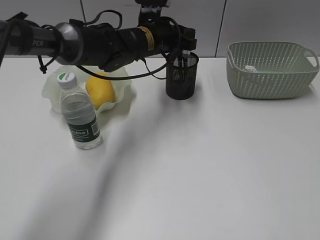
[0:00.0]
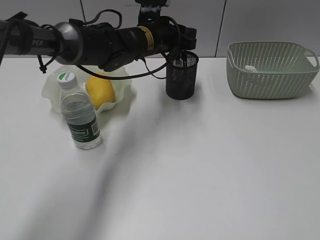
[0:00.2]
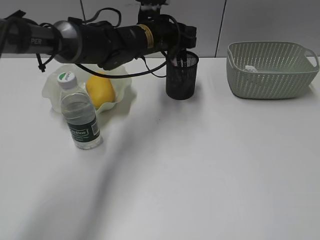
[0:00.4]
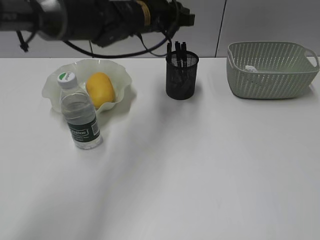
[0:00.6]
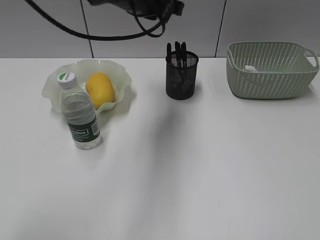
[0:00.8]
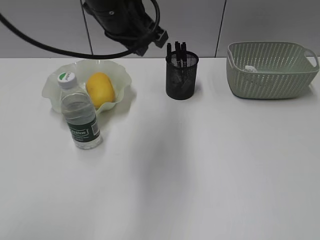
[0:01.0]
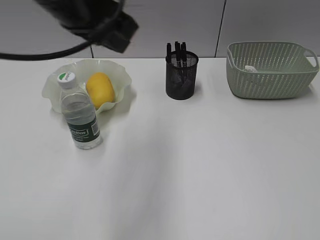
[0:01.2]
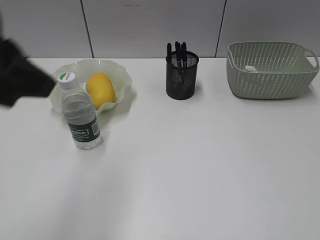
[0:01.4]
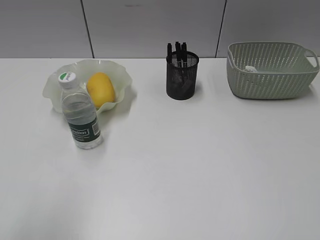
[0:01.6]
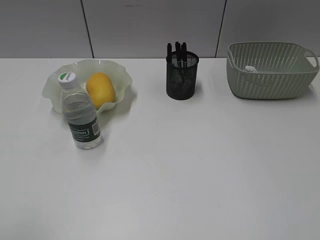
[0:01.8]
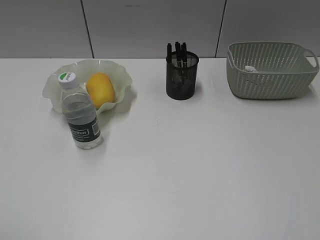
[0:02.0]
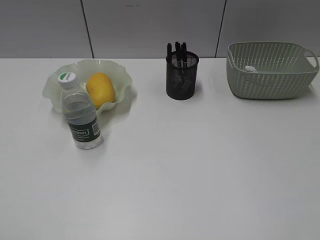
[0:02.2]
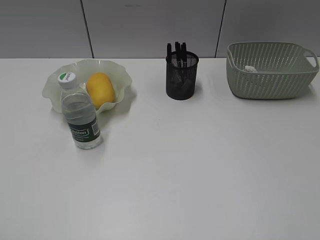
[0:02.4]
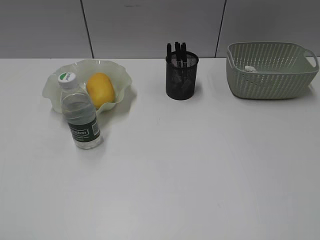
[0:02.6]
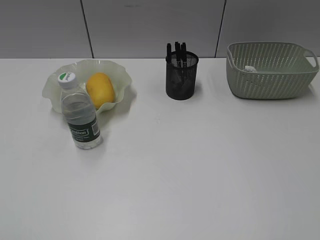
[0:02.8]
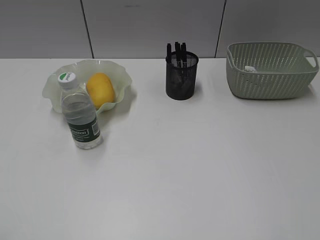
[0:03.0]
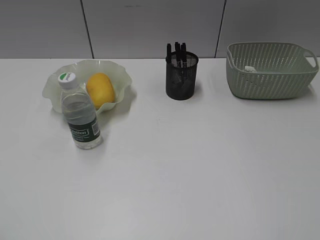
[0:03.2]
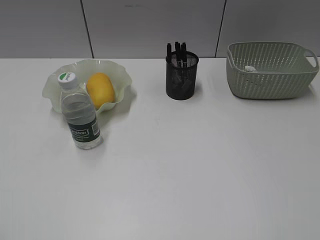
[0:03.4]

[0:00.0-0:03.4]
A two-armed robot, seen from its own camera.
0:00.0 to 0:01.6: The left gripper is displaced backward and to the left by about 40 cm.

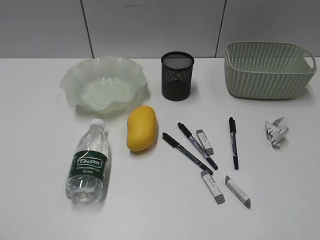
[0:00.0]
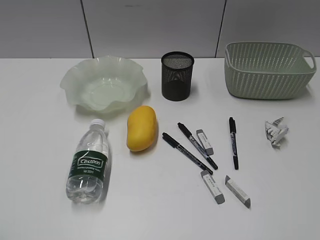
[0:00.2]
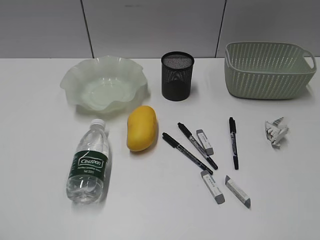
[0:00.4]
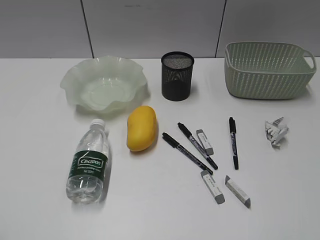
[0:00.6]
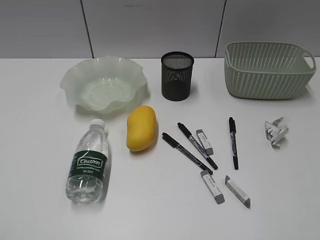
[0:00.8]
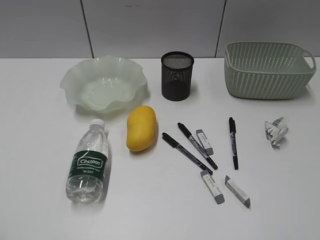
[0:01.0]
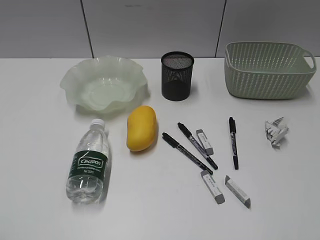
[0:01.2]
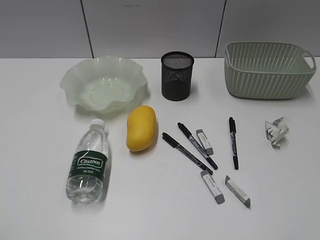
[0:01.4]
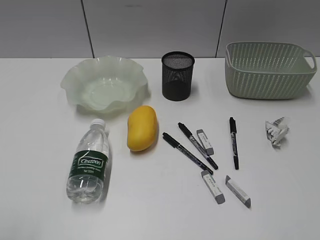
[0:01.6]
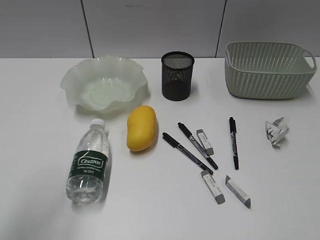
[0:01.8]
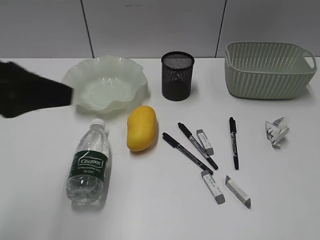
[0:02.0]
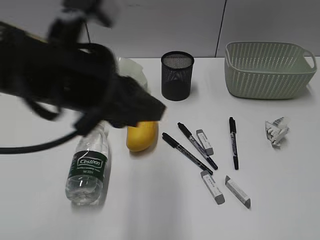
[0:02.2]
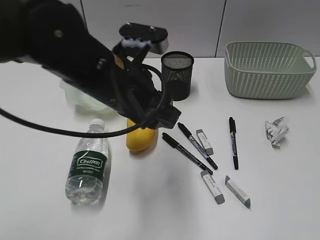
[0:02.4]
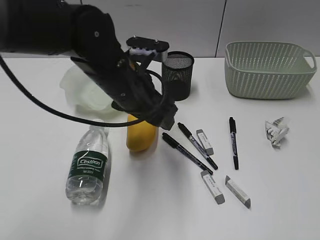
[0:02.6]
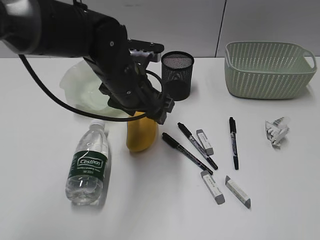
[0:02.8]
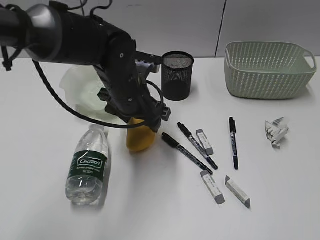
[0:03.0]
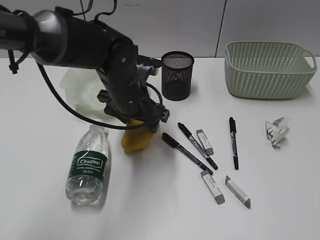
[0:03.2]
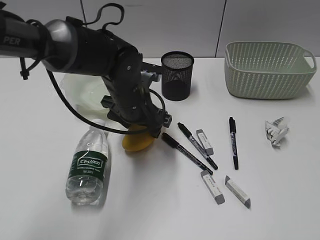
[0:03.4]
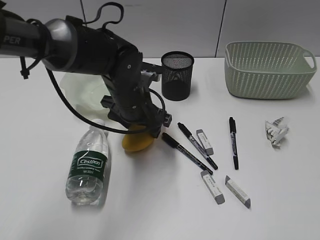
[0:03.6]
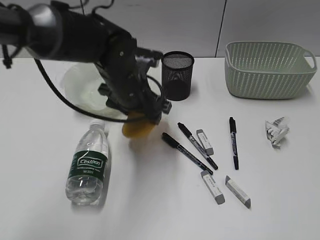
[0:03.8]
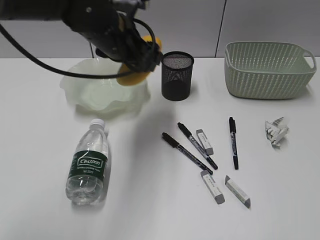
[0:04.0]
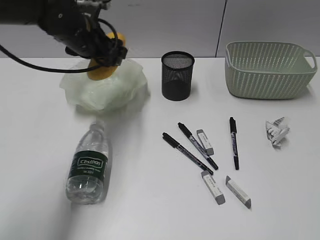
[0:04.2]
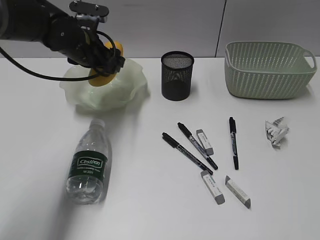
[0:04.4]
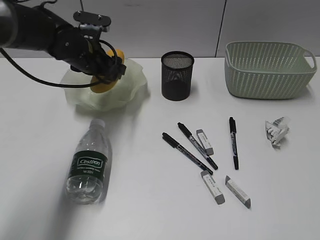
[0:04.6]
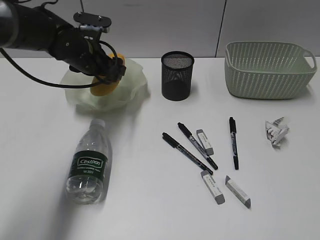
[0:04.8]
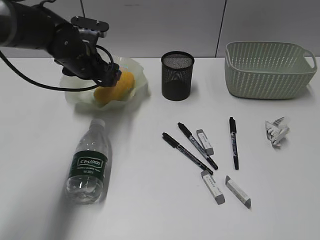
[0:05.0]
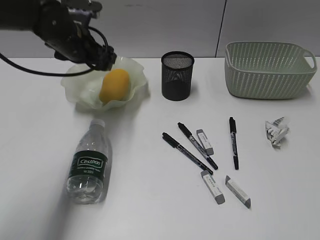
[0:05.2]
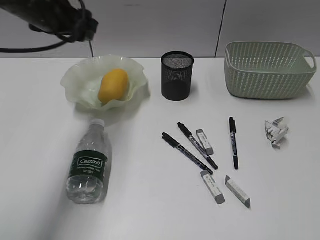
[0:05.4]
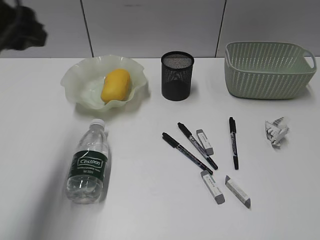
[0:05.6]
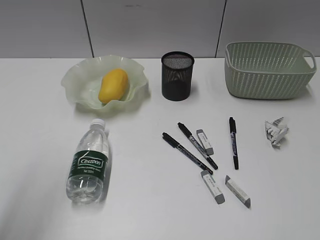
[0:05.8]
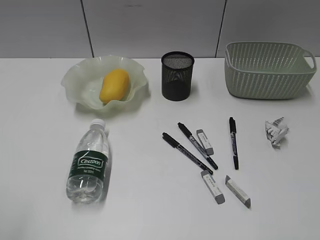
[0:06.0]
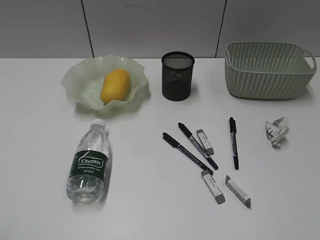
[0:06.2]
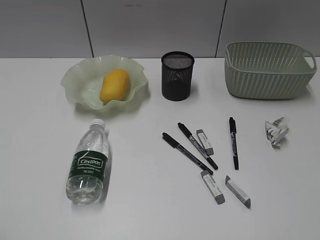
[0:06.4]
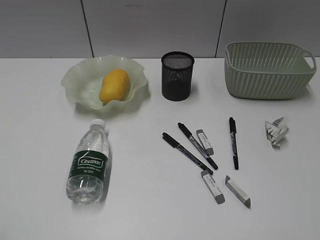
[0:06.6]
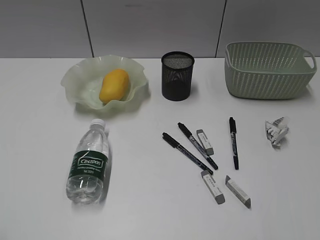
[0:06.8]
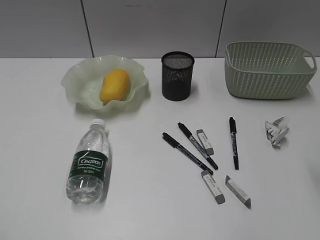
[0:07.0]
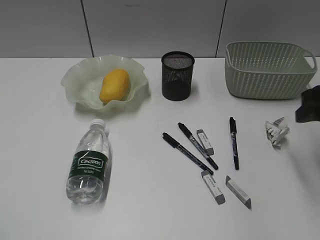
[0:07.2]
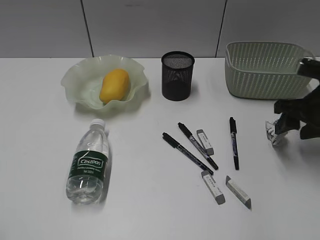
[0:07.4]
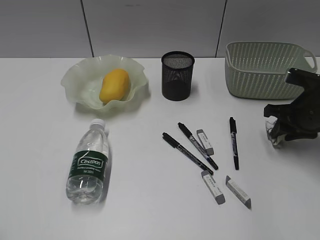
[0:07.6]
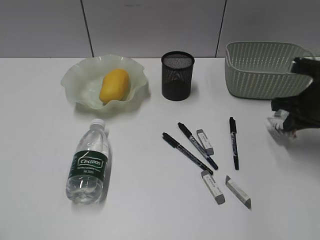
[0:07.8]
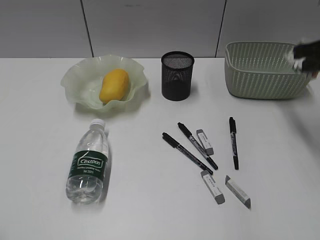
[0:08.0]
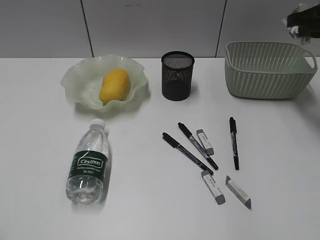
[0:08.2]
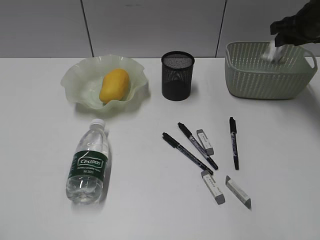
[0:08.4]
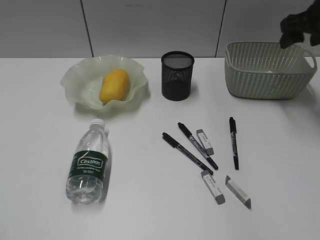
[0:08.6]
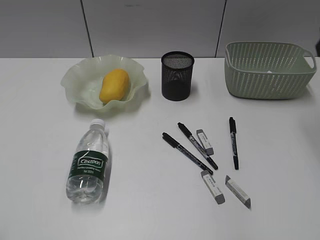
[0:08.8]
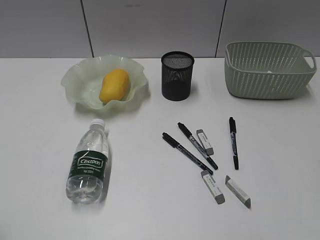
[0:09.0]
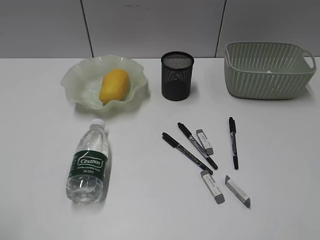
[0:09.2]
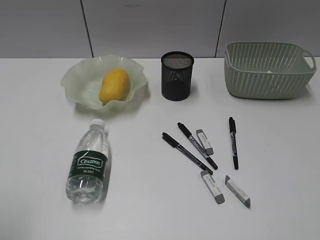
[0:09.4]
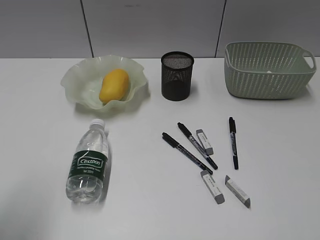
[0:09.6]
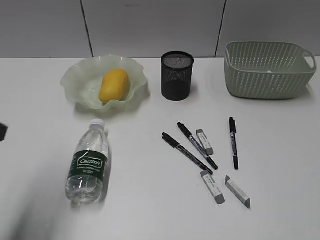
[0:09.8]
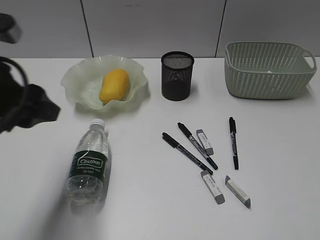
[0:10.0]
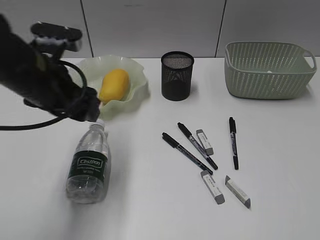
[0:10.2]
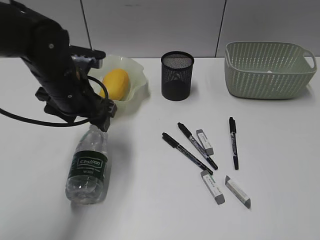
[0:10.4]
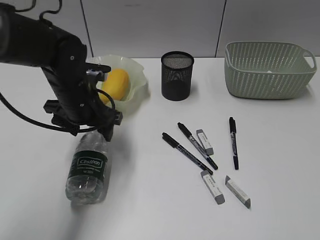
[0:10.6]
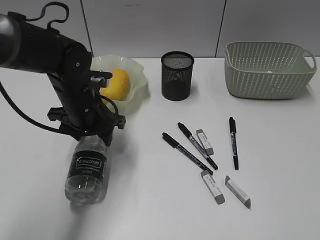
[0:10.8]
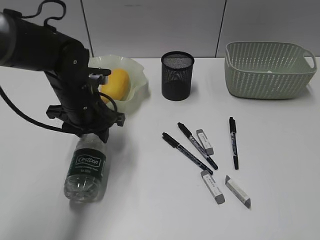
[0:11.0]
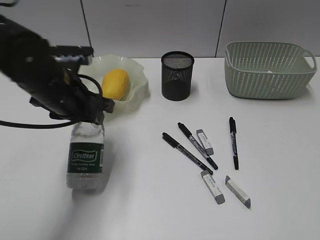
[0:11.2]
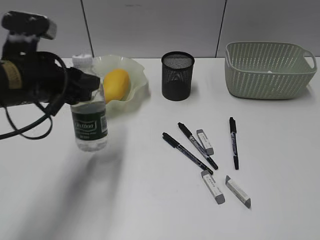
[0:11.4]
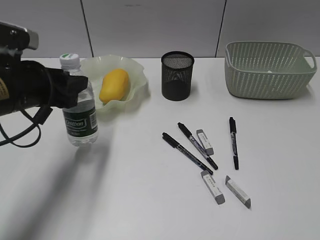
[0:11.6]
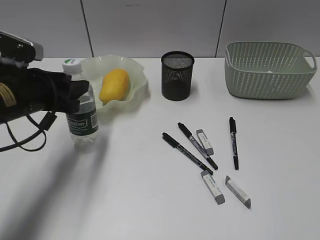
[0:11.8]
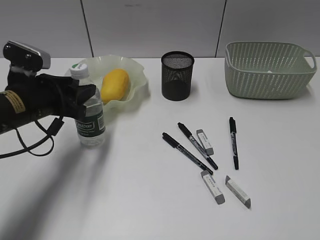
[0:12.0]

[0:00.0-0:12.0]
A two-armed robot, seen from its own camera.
Step, 0:01.4 to 0:03.4: Grasp the mango with left gripper.
Step, 0:03.6 to 0:05.2: Place the mango in the plate with left gripper.
Step, 0:05.4 to 0:07.6: Grasp the waste paper with right gripper.
Step, 0:07.8 to 0:08.4: Place the waste paper in the basket with right gripper.
Step, 0:08.6 to 0:10.8: Grasp the bottle with left gripper.
0:01.6 to 0:03.0: The left gripper heads forward, to the right and downward, covering some 40 cm, and opens.
0:03.0 to 0:04.4: The left gripper is displaced forward and to the left by approximately 15 cm, and goes upward and returns, approximately 10 cm each way.
0:04.4 to 0:06.0: The left gripper travels backward and to the left by some 40 cm.
0:06.0 to 0:07.6: The right gripper moves forward and downward, approximately 40 cm, and opens and closes again.
0:07.6 to 0:09.0: The right gripper shifts roughly 25 cm upward and backward, and opens up.
0:09.0 to 0:10.4: The right gripper is displaced backward by roughly 15 cm. The left gripper shifts roughly 35 cm forward and to the right, and opens up.
0:10.4 to 0:12.0: The left gripper moves up and down over roughly 10 cm, changing direction 2 times, and closes up.

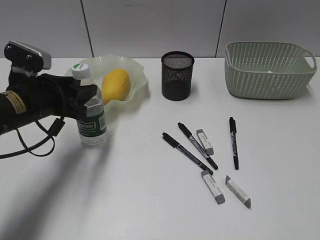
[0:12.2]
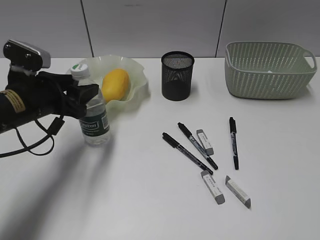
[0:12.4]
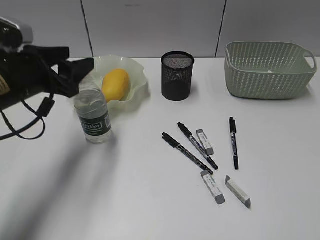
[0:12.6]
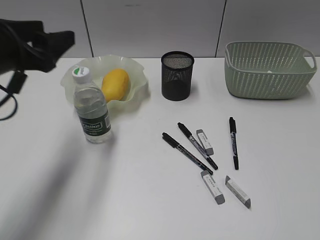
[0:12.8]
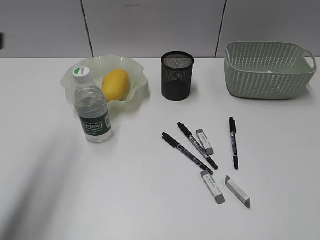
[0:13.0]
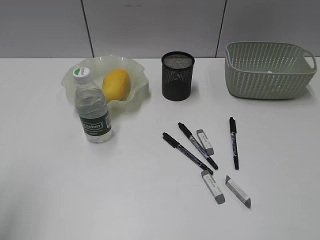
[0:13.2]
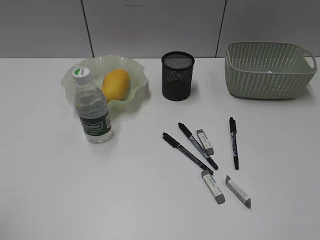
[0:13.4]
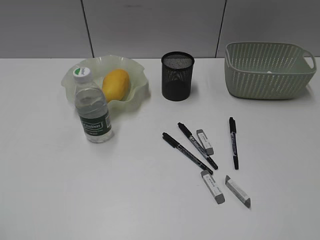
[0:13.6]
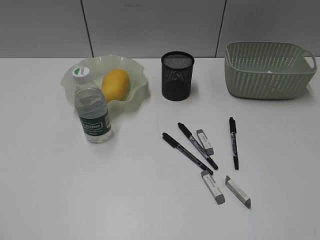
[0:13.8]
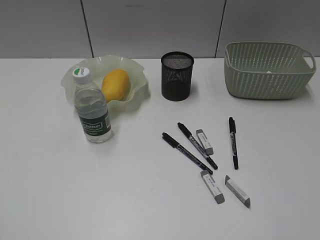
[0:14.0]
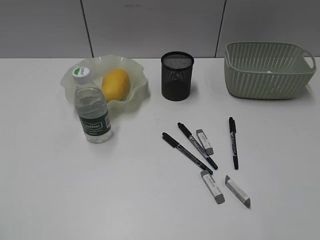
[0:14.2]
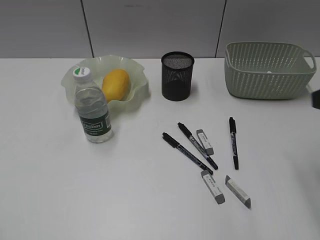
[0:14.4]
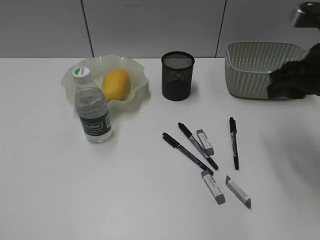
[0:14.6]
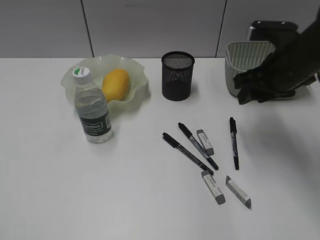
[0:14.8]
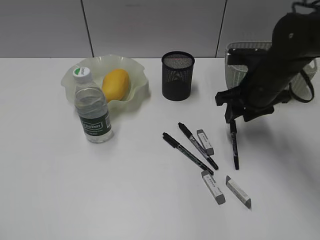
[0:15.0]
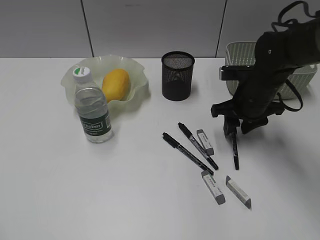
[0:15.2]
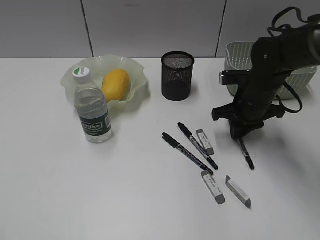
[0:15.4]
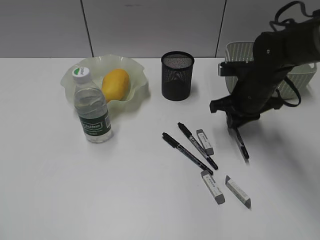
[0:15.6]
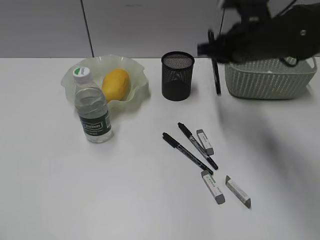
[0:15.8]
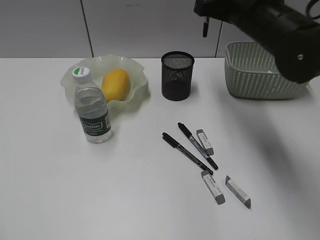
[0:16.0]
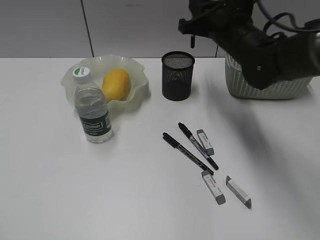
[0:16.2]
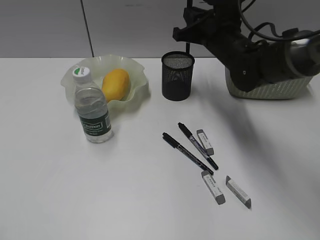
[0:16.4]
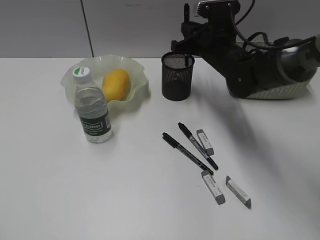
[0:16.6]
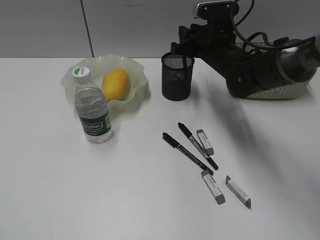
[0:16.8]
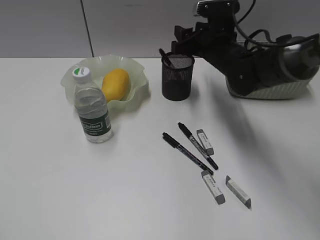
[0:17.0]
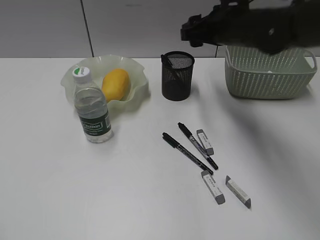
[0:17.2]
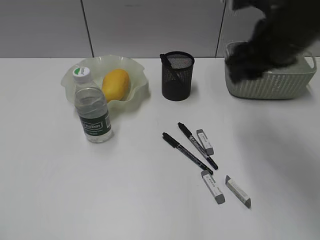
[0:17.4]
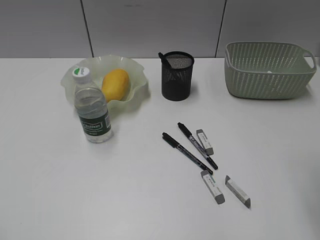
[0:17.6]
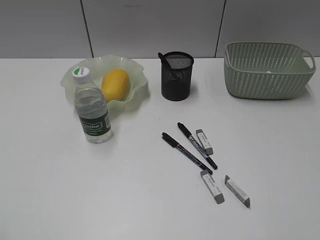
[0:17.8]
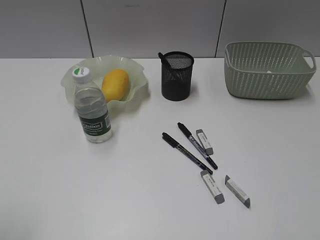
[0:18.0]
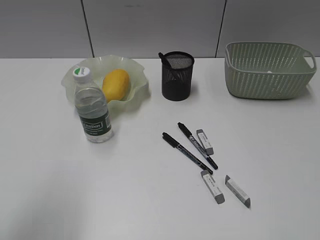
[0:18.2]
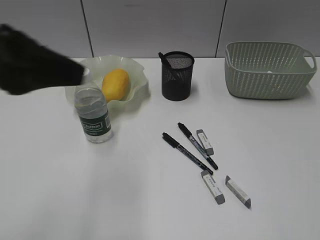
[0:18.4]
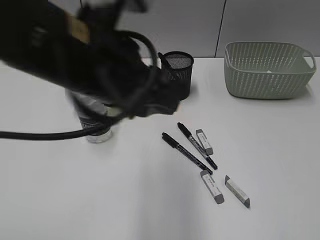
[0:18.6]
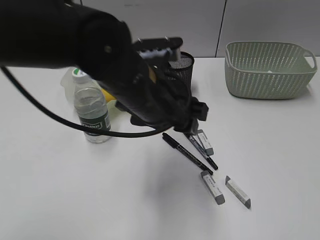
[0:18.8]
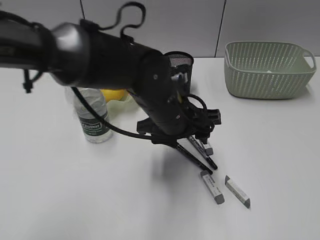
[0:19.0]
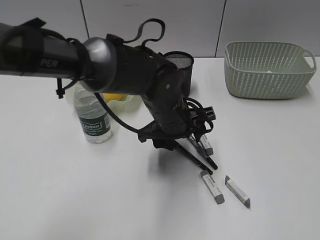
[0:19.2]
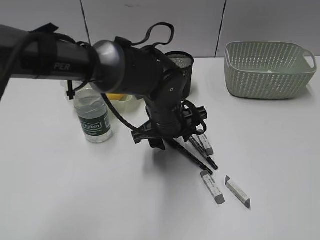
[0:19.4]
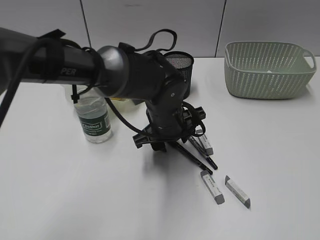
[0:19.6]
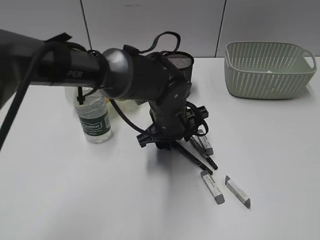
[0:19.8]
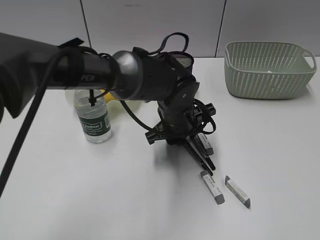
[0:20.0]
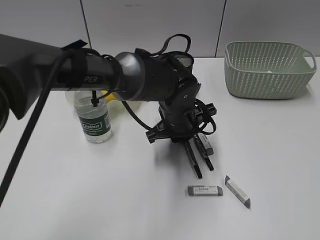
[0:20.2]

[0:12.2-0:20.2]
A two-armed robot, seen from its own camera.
Step, 0:12.8 to 0:15.4: Grasp the black pen with right gripper.
Step, 0:15.6 to 0:16.8: Place the black pen in pen holder with right gripper.
0:12.2 to 0:13.8: The left gripper goes some 35 cm backward, upward and to the left.
0:13.8 to 0:15.4: The right gripper goes about 40 cm forward and downward, and closes.
0:15.4 to 0:17.0: The right gripper heads to the left, upward and forward, covering roughly 10 cm, and opens.
0:17.0 to 0:18.6: The right gripper moves backward and to the right, approximately 50 cm. The left gripper heads to the right and forward, covering approximately 35 cm.
0:18.6 to 0:20.2: The left gripper travels downward, forward and to the right by roughly 25 cm, and opens, then closes again.
